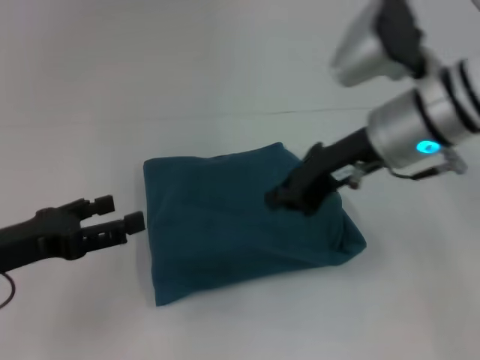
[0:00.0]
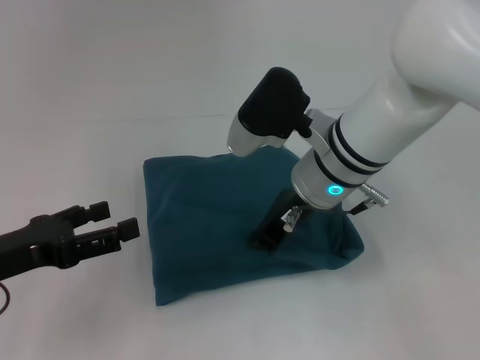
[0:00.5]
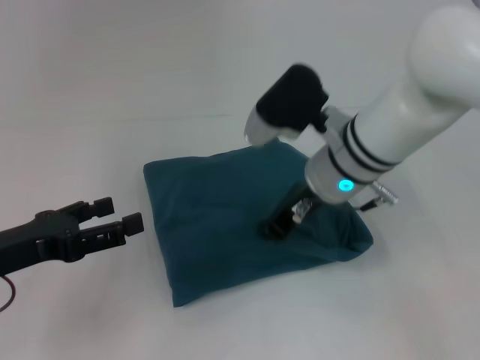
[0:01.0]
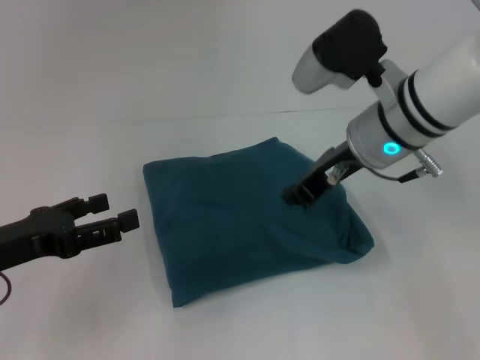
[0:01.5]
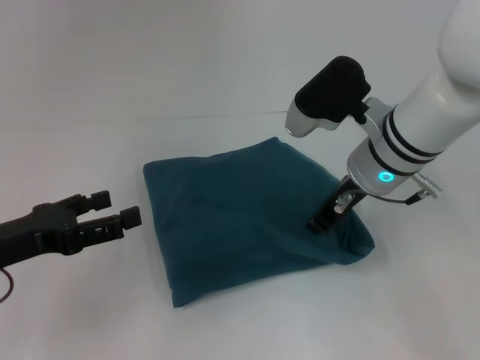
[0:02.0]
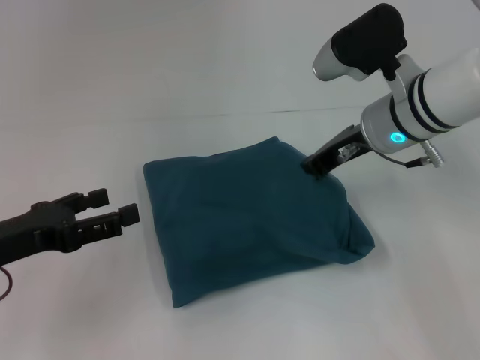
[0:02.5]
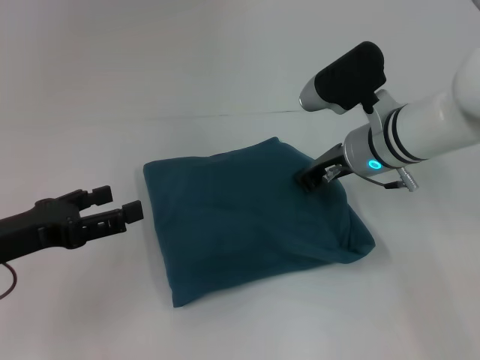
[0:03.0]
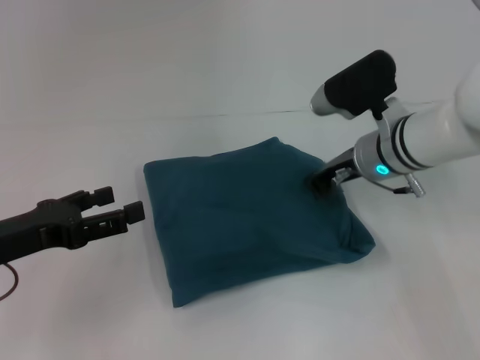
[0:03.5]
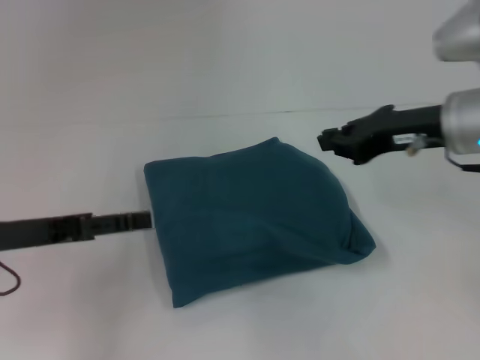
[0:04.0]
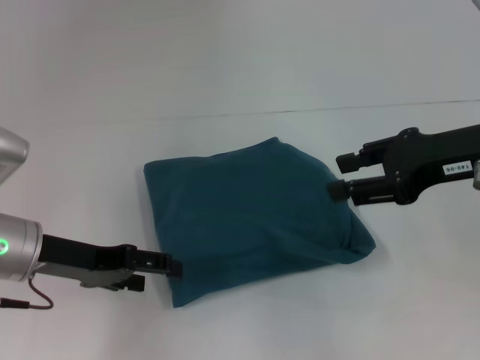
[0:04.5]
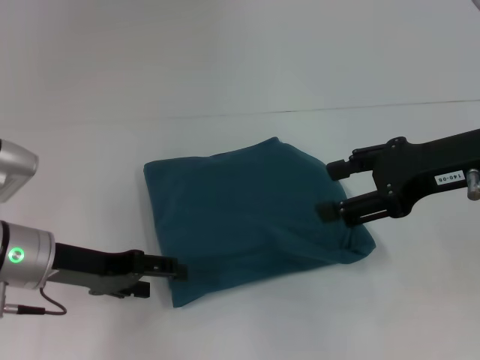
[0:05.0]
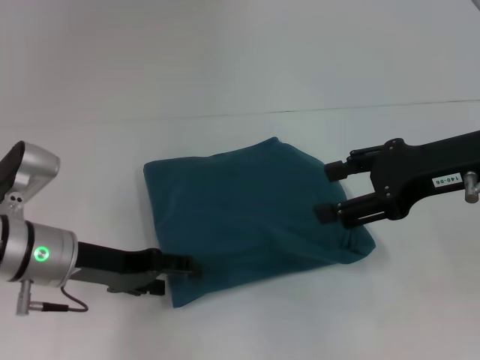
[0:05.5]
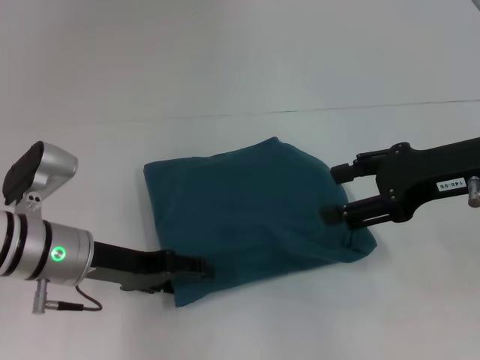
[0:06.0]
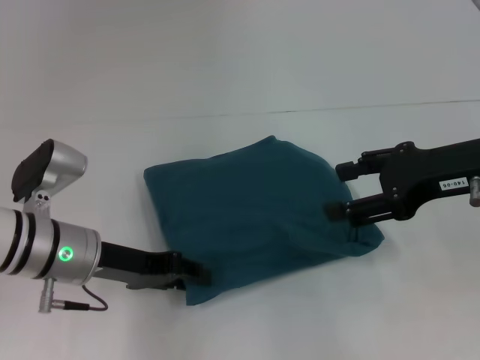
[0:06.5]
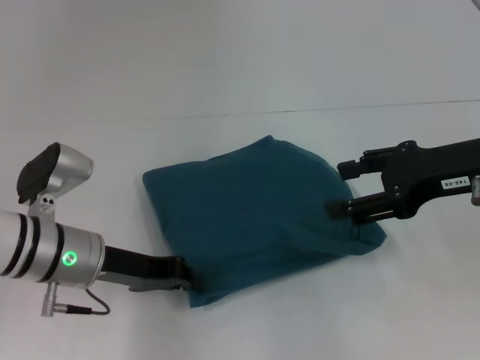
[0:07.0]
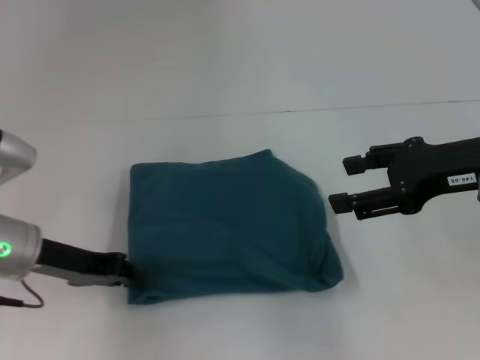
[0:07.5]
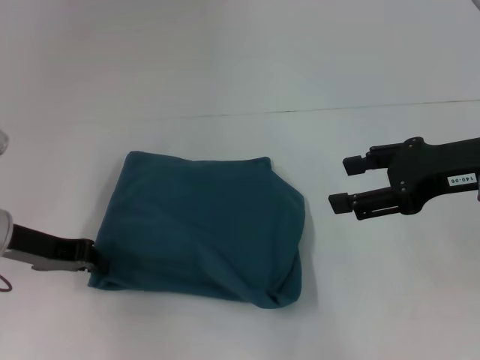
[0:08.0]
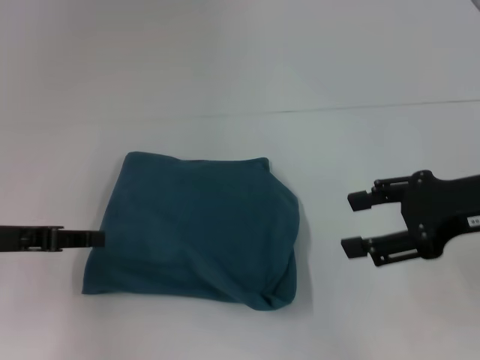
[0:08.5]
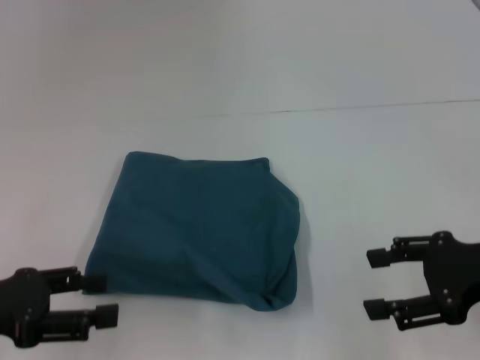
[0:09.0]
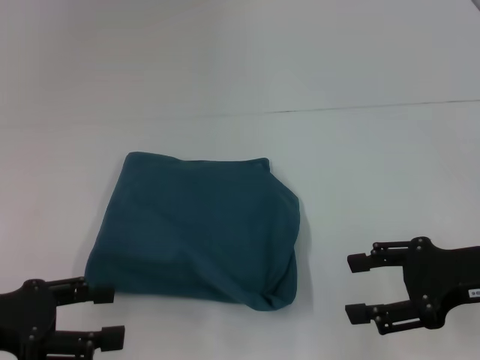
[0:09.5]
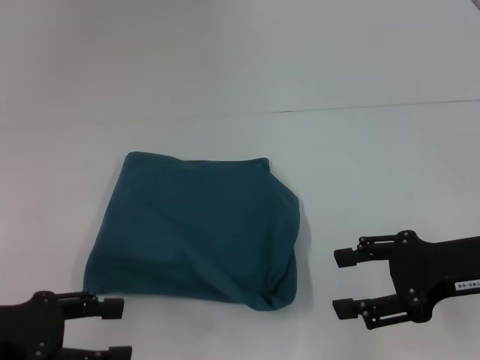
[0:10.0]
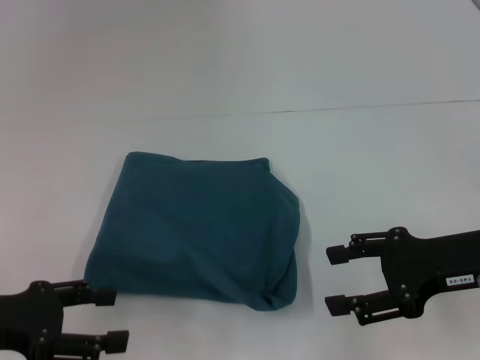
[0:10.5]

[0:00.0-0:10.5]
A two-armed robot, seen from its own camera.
0:00.0 to 0:02.0: The right gripper moves downward, approximately 5 cm.
0:02.0 to 0:04.0: The right gripper moves to the right, approximately 10 cm.
0:04.0 to 0:06.5: The left gripper travels to the right by some 10 cm; the right gripper moves roughly 5 cm, and opens its fingers.
0:06.5 to 0:08.5: The left gripper travels to the left by approximately 10 cm, and closes up.
0:08.5 to 0:10.5: The left gripper goes roughly 5 cm backward, and opens up; the right gripper shifts roughly 5 cm downward.

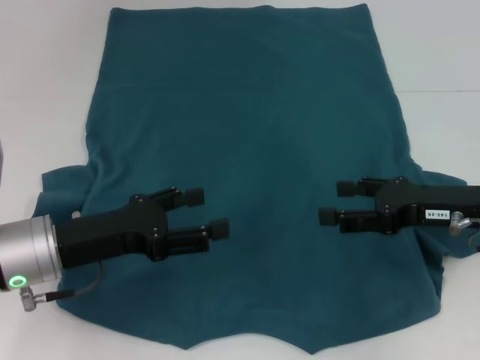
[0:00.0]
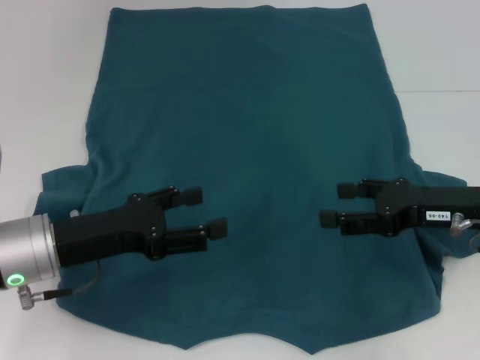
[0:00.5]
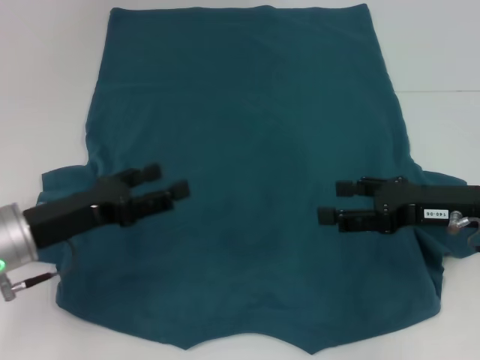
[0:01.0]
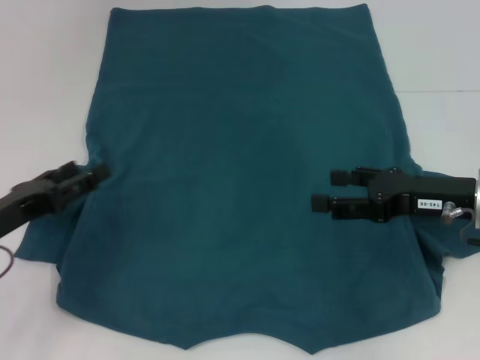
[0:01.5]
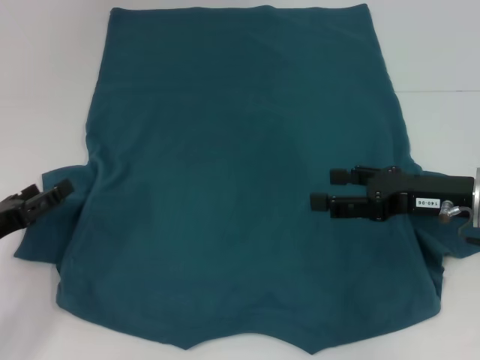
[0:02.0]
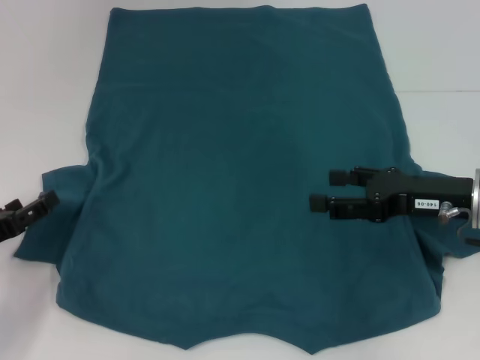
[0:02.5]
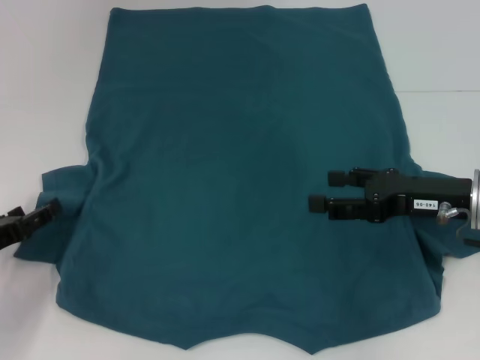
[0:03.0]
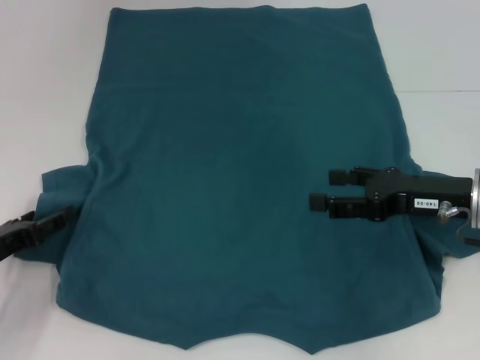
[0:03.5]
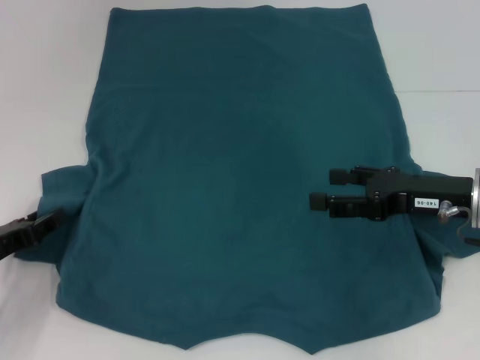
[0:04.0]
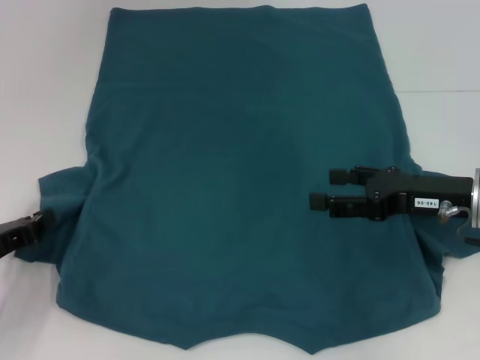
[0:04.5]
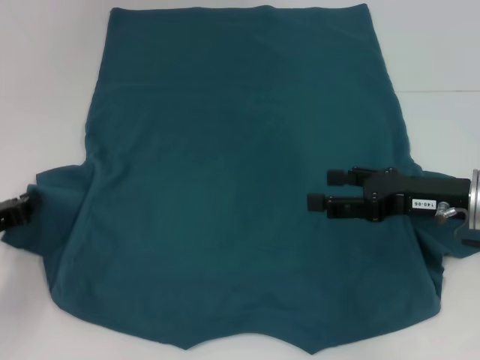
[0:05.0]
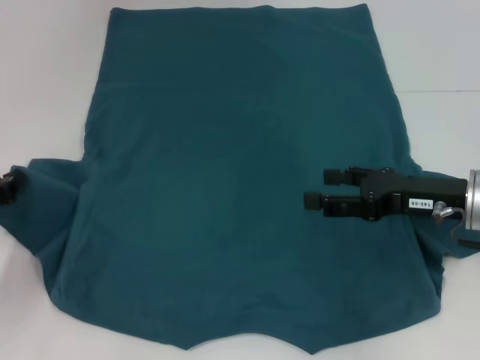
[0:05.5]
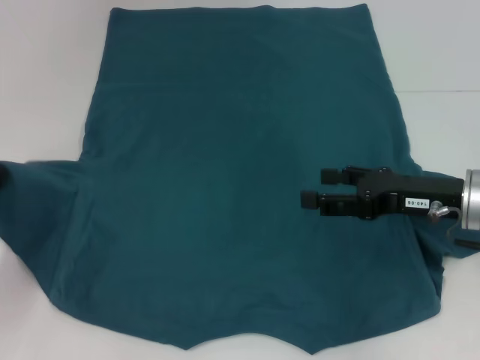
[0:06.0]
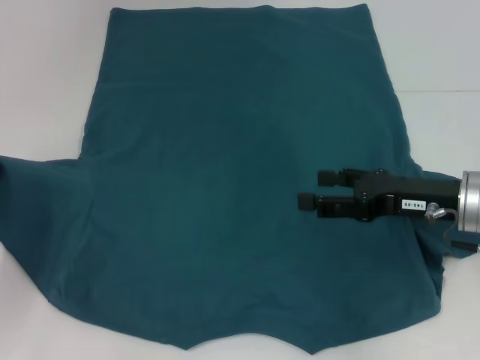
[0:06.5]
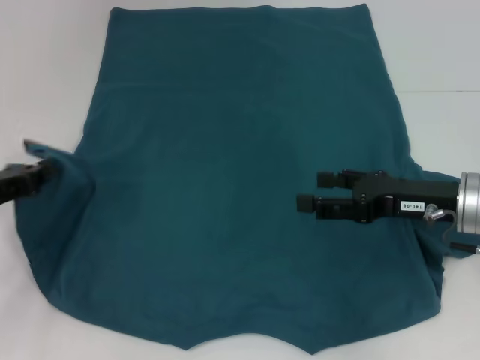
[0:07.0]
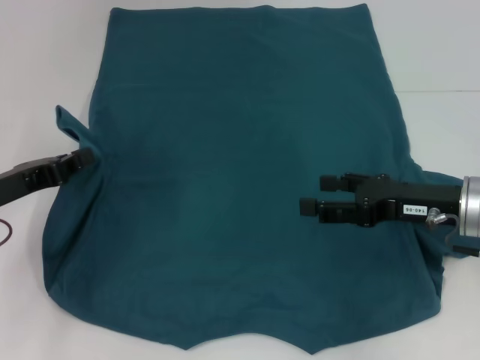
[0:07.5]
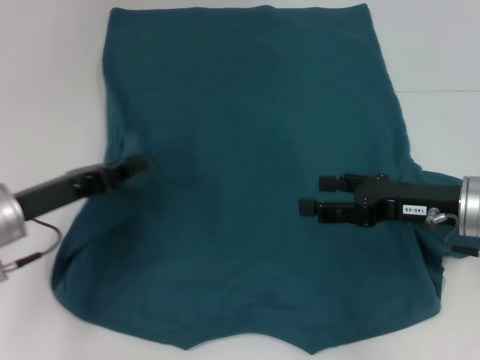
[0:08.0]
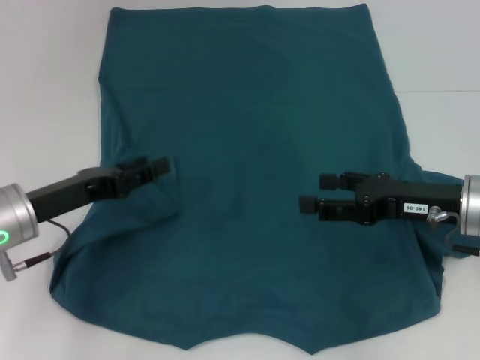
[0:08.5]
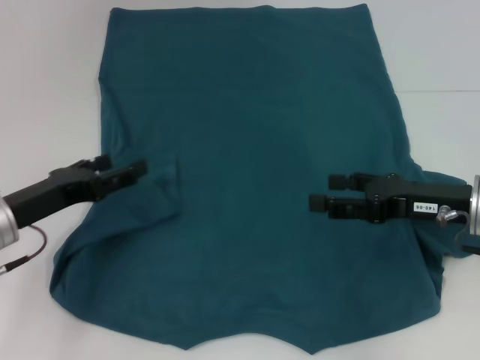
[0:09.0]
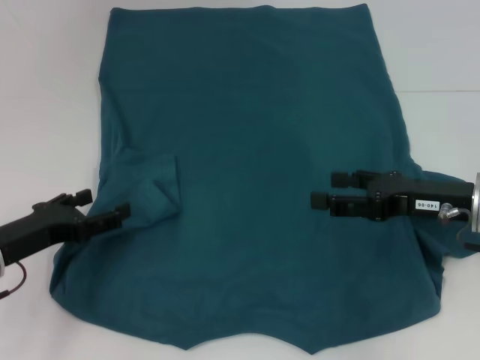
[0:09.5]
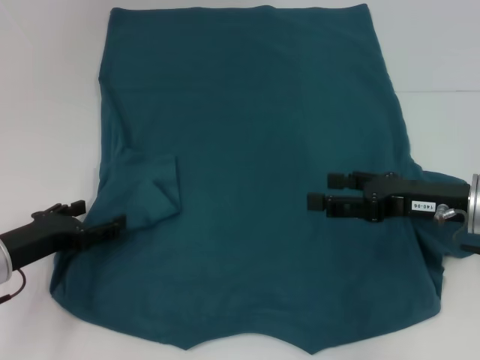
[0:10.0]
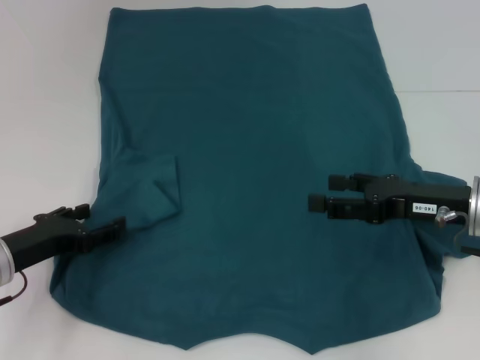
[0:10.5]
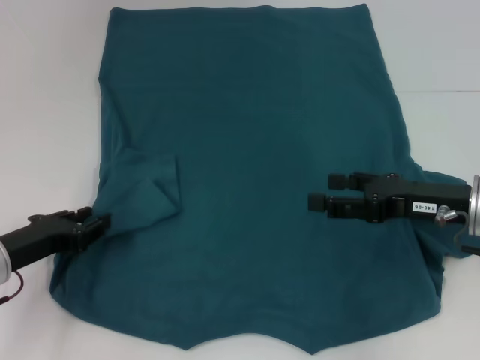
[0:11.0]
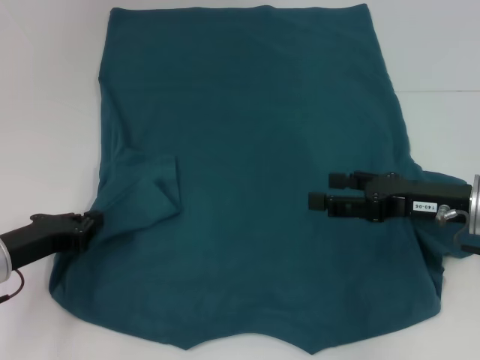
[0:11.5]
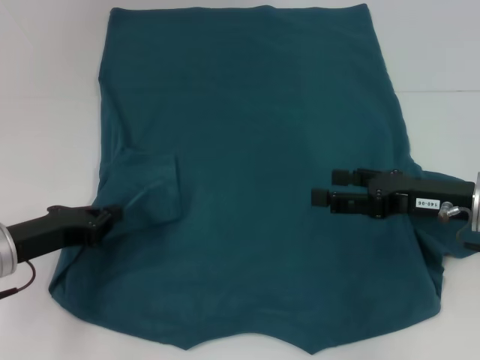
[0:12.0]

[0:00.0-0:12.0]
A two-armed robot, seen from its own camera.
0:00.0 to 0:02.0: The left gripper moves to the left, approximately 10 cm.
0:02.0 to 0:04.0: The grippers make only small movements.
0:04.0 to 0:06.0: The left gripper moves approximately 5 cm, and closes up.
0:06.0 to 0:08.0: The left gripper travels to the right by about 10 cm.
0:08.0 to 0:10.0: The left gripper changes place by about 5 cm, and opens.
0:10.0 to 0:12.0: The left gripper closes up.

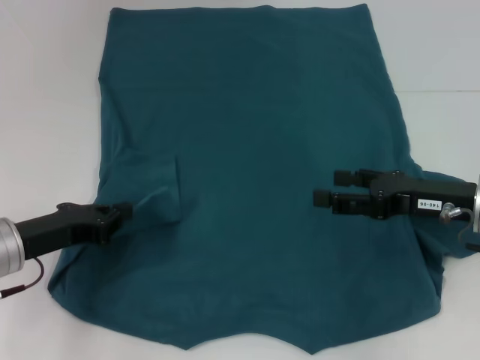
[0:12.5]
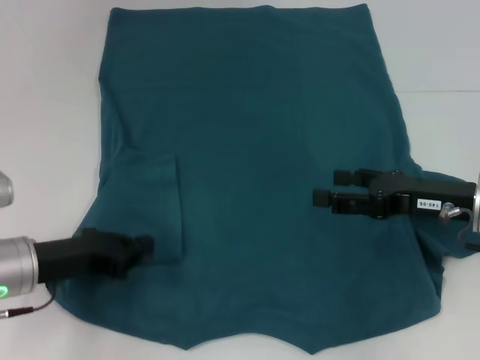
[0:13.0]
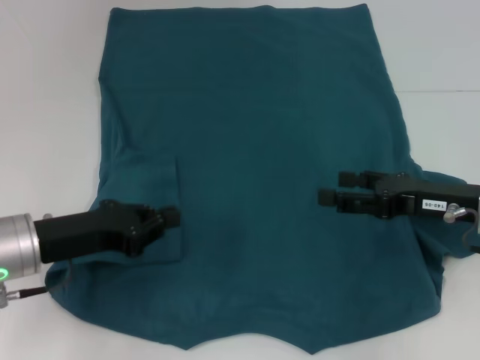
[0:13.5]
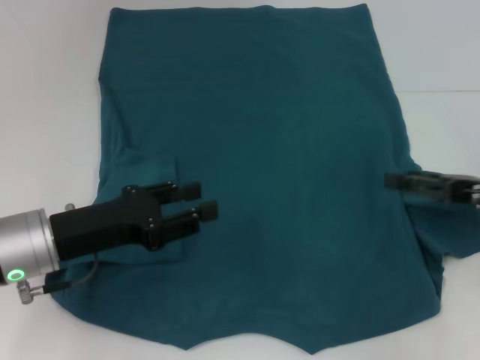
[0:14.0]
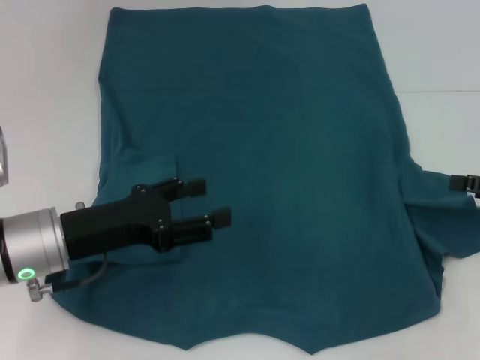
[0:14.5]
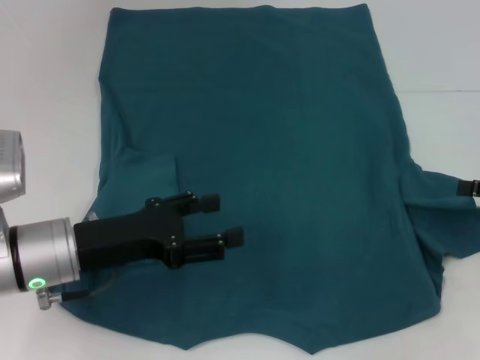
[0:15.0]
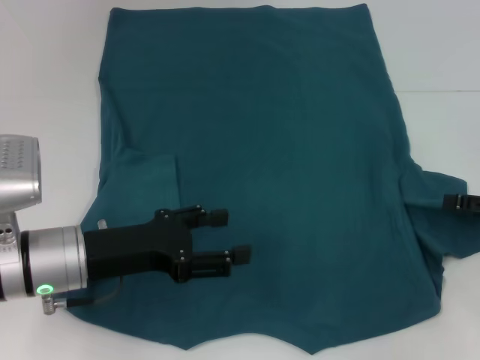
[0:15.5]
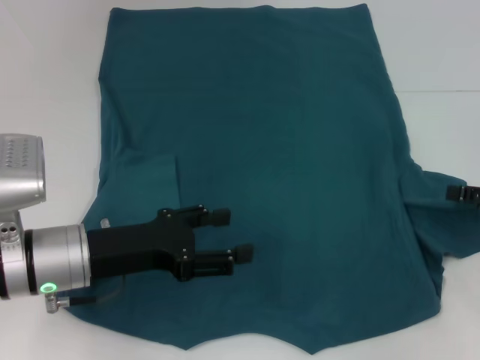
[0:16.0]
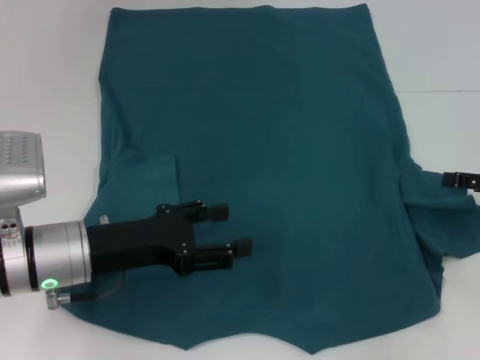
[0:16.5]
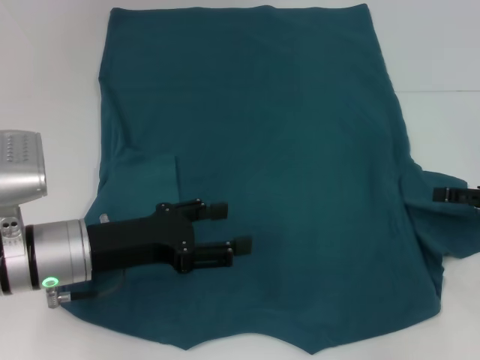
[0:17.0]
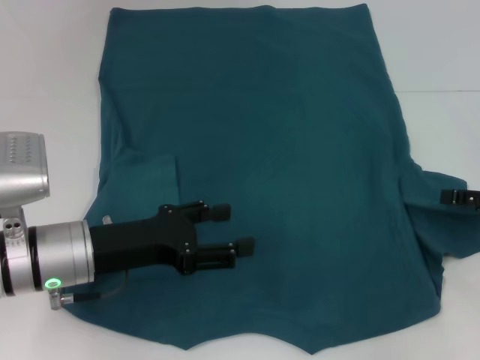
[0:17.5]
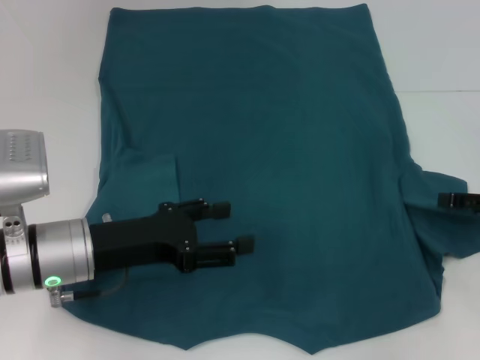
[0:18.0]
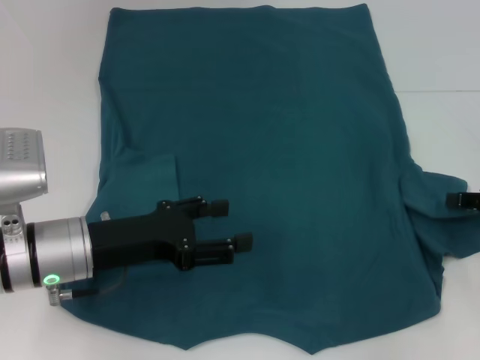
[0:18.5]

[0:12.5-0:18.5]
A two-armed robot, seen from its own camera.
0:12.5 to 0:14.5: The right gripper travels to the right by some 10 cm. The left gripper moves to the right, roughly 5 cm, and opens its fingers.
0:14.5 to 0:16.5: There are only small adjustments of the grippers.
0:16.5 to 0:18.5: The right gripper closes its fingers.
